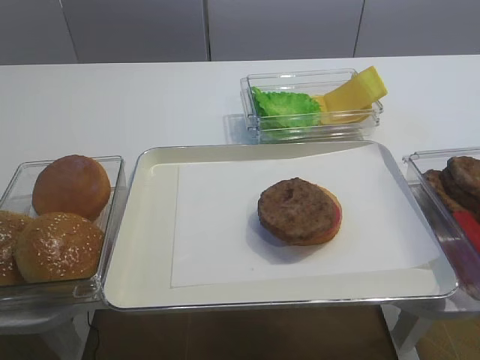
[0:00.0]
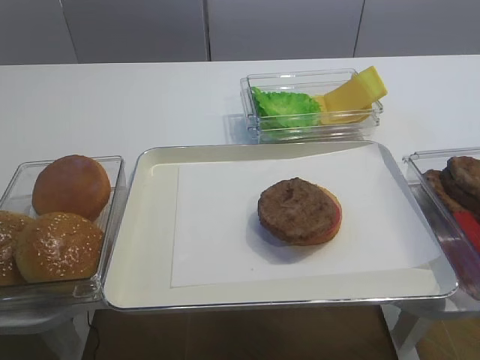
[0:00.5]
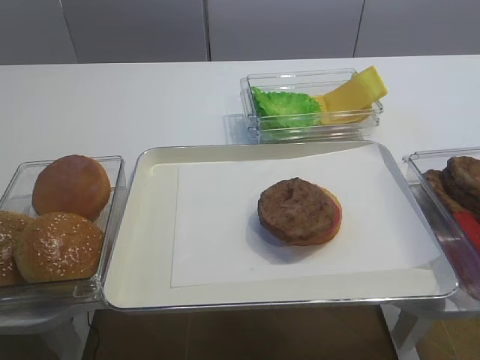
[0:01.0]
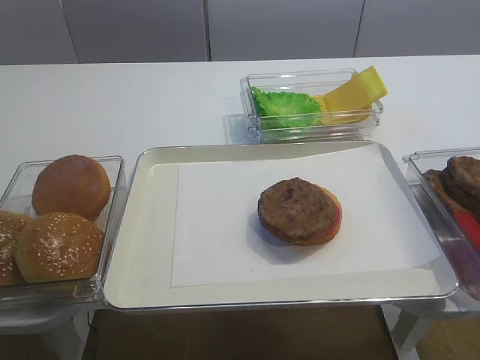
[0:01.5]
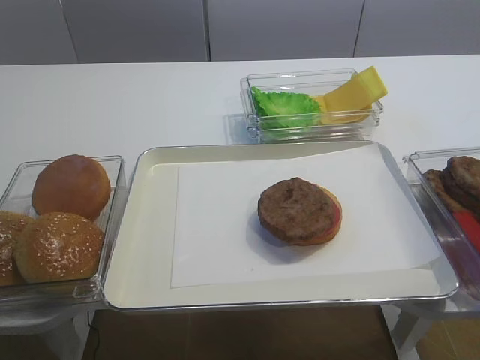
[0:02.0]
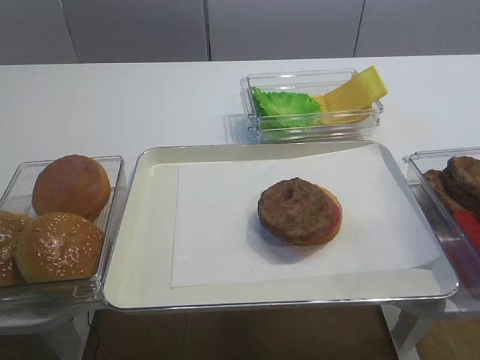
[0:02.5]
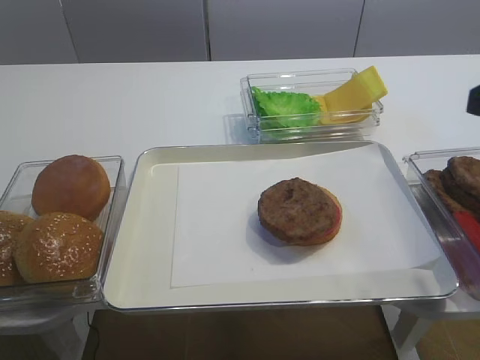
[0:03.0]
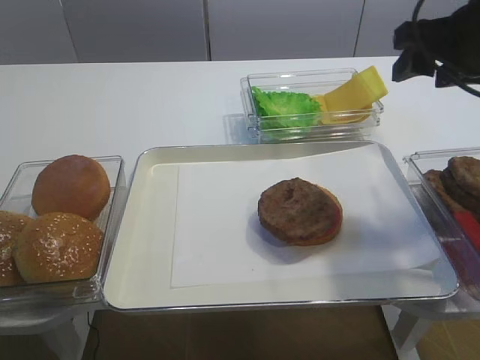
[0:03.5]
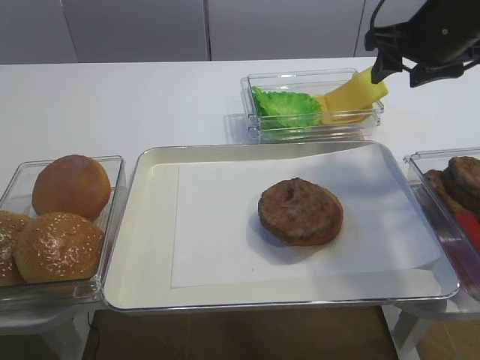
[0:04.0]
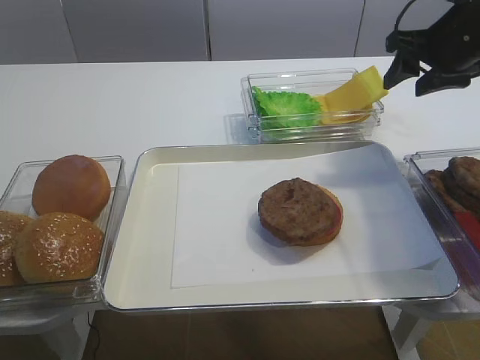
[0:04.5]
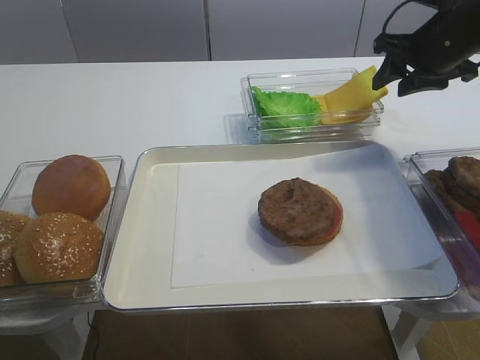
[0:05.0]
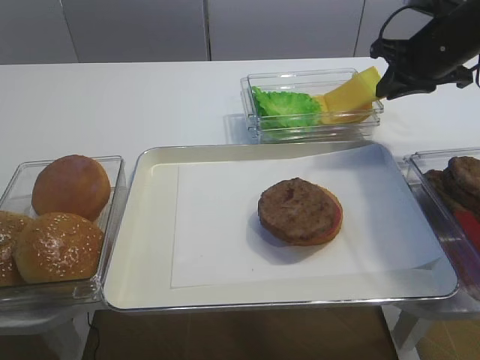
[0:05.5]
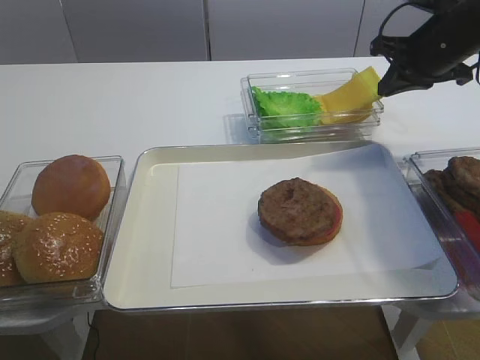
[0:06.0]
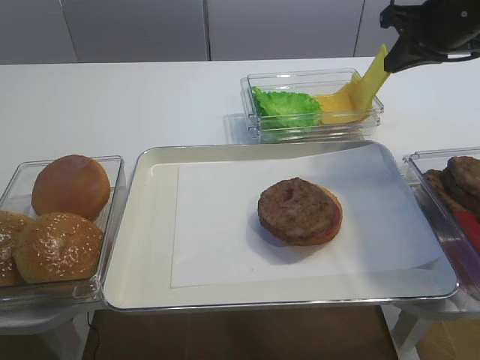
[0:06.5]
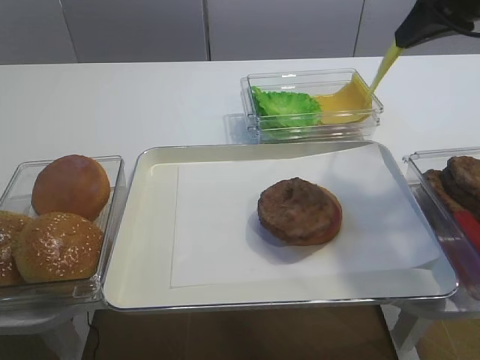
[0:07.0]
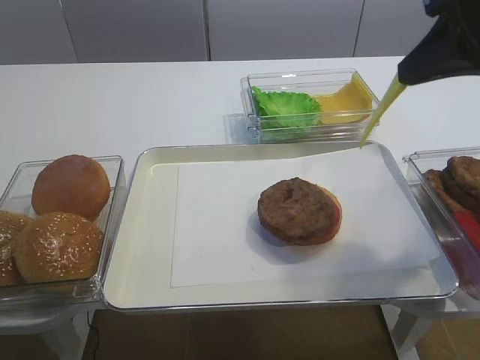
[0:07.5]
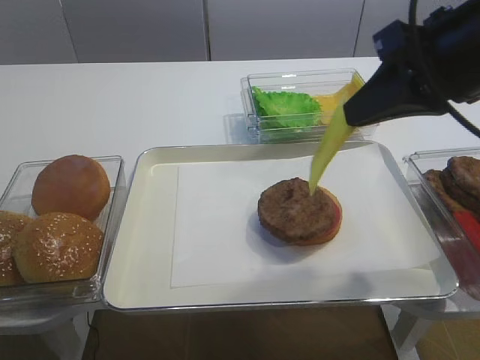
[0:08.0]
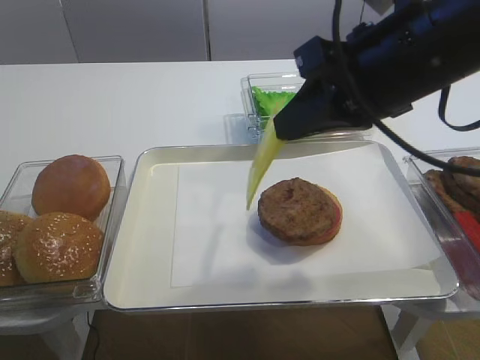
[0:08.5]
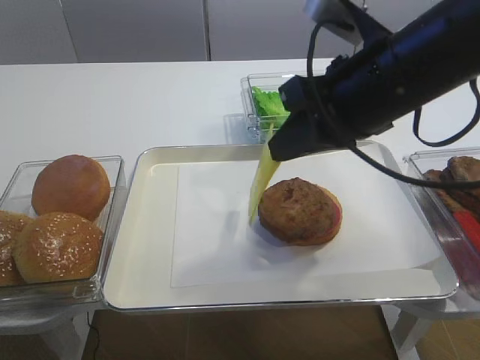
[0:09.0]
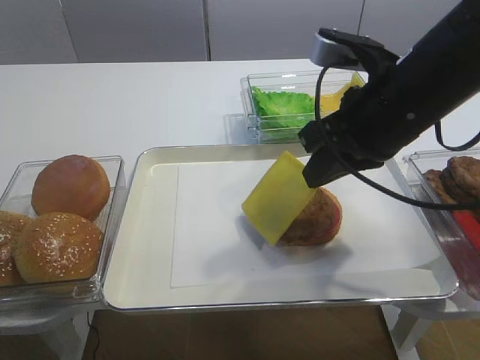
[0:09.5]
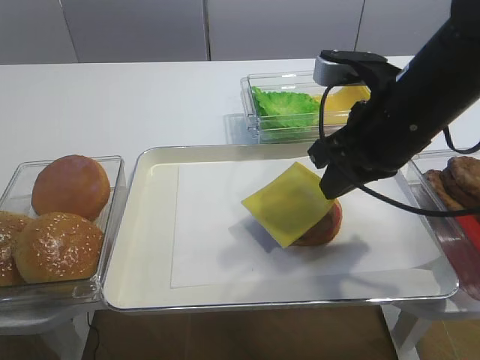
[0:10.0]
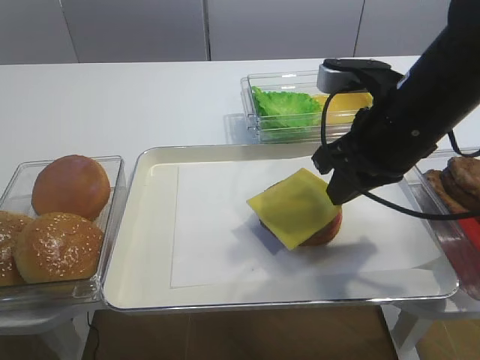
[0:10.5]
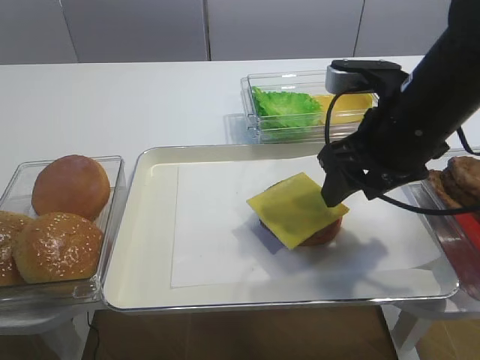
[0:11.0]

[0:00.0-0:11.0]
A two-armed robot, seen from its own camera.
Step, 0:00.0 to 0:06.0: Pick up the cheese slice with the right gripper.
0:02.0 to 0:03.5: The right gripper goes about 30 cm forward.
0:03.5 to 0:05.5: The right gripper is displaced forward and downward by about 15 cm, and closes its fingers.
0:05.5 to 0:07.5: The right gripper heads backward and upward, covering approximately 20 cm.
0:07.5 to 0:09.0: The right gripper moves to the left and downward, roughly 10 cm.
0:09.0 to 0:11.0: The right gripper moves some 5 cm, and opens its fingers.

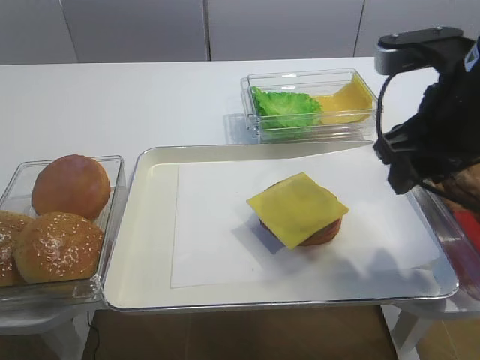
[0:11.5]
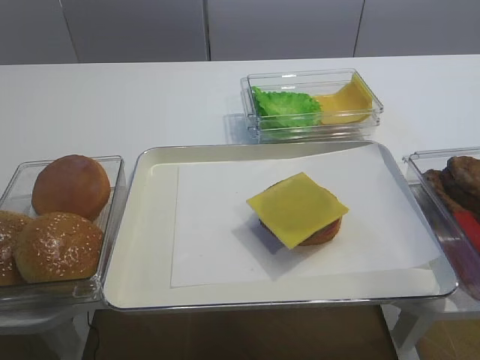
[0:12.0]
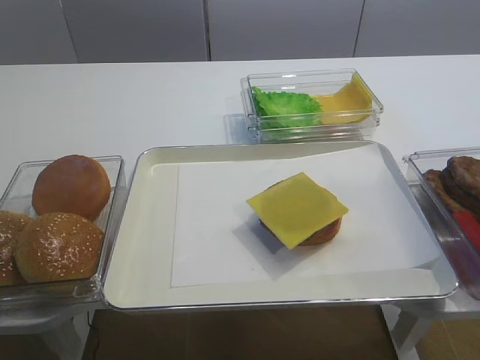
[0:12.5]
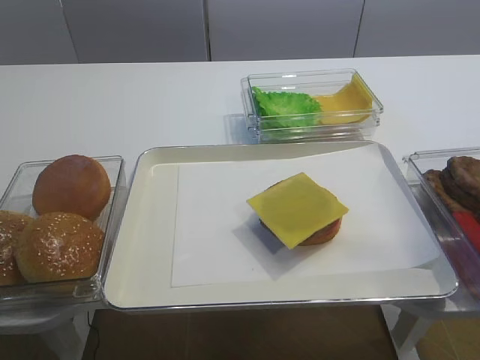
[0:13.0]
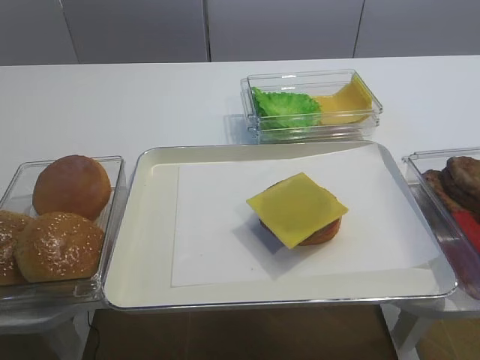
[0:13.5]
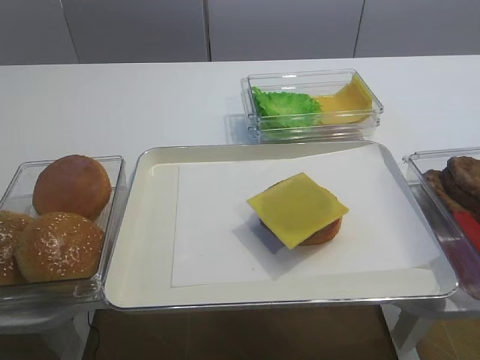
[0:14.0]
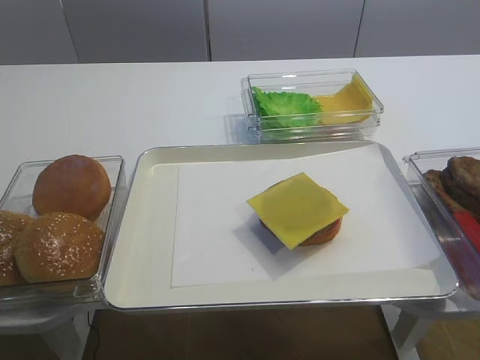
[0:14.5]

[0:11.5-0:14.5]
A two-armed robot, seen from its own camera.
0:11.5 to 0:13.0: The right gripper moves backward, some 25 cm.

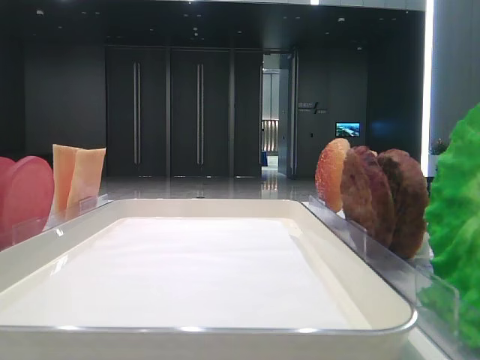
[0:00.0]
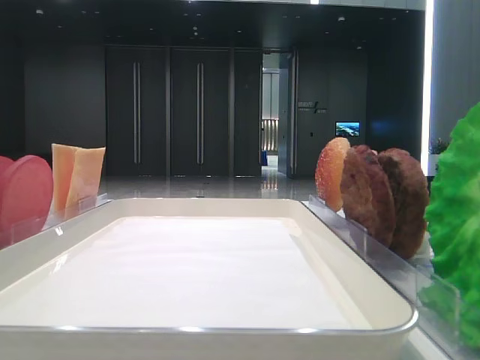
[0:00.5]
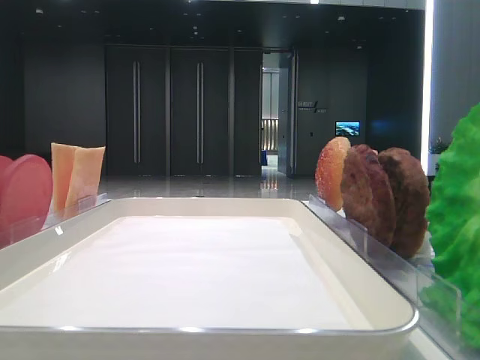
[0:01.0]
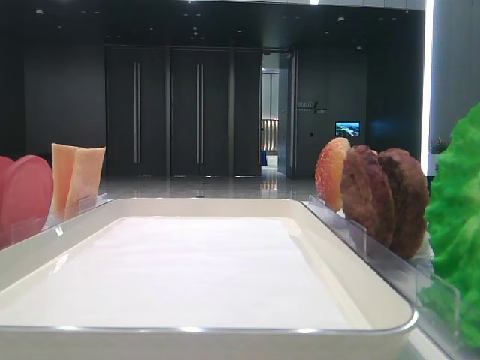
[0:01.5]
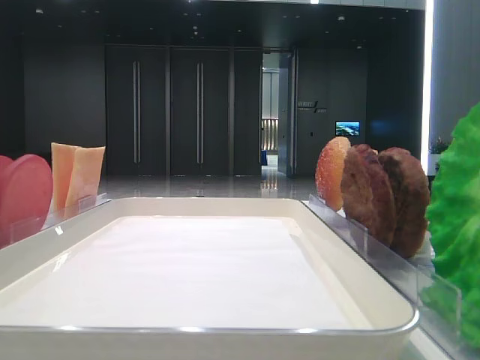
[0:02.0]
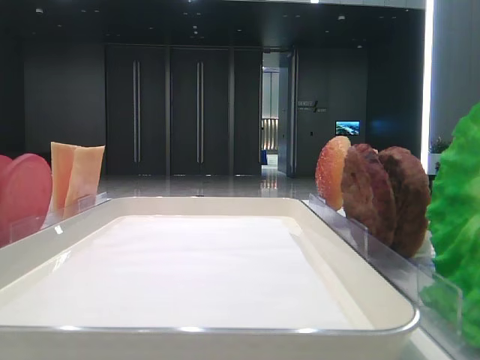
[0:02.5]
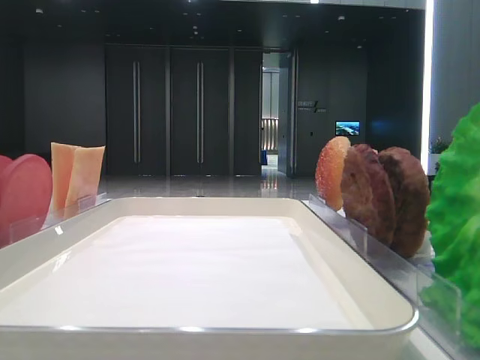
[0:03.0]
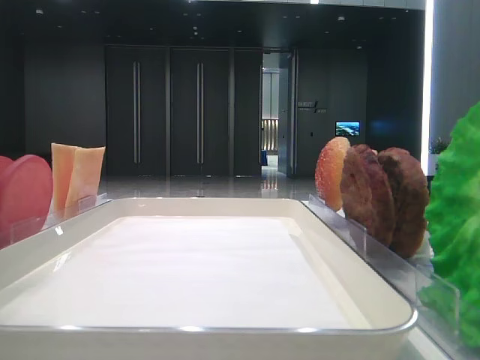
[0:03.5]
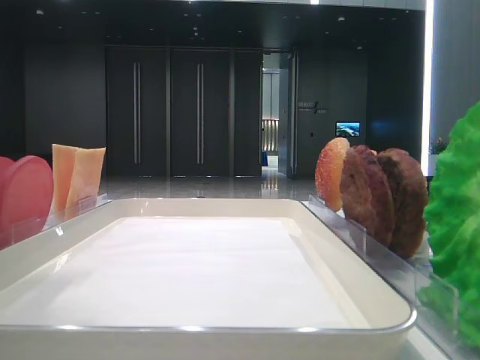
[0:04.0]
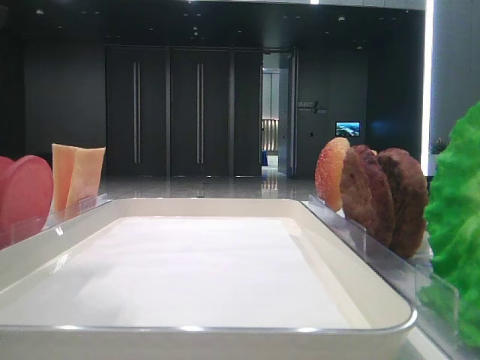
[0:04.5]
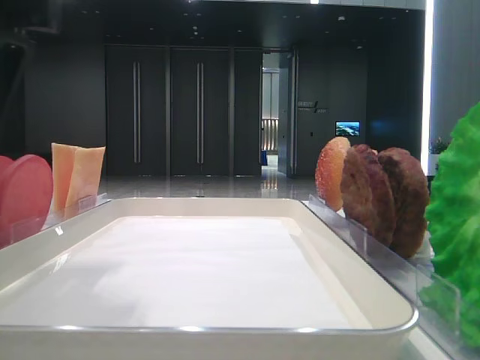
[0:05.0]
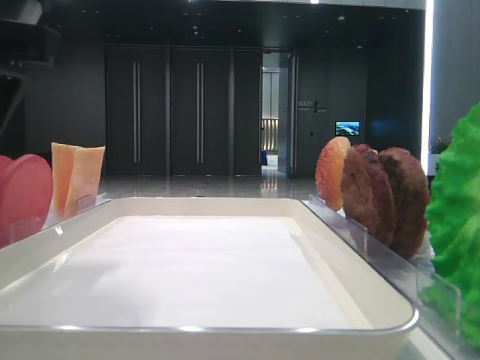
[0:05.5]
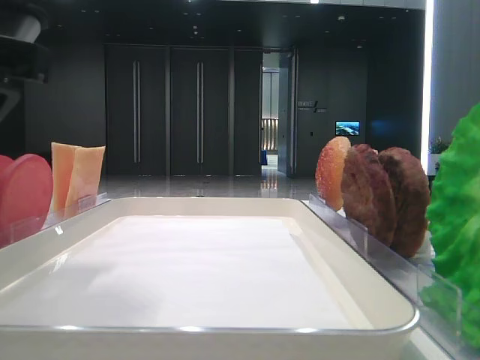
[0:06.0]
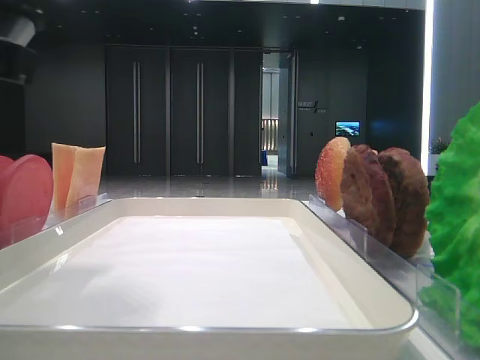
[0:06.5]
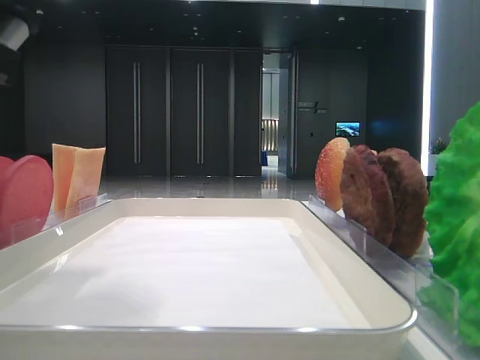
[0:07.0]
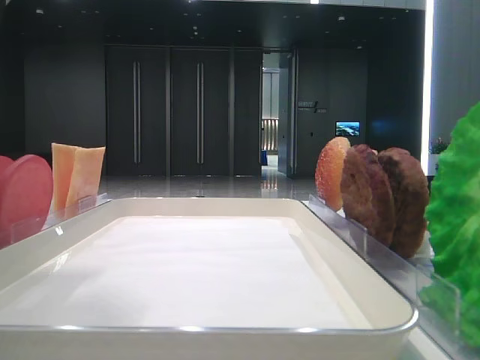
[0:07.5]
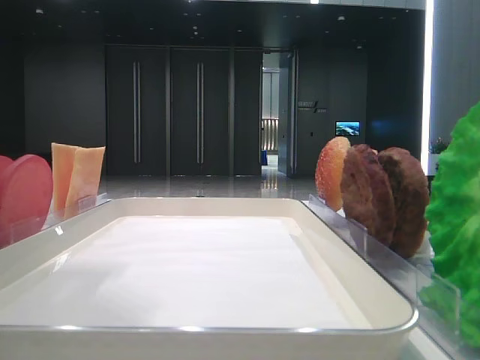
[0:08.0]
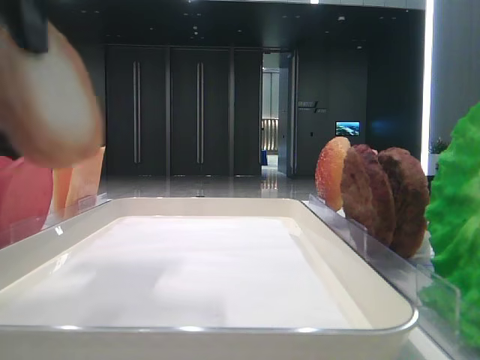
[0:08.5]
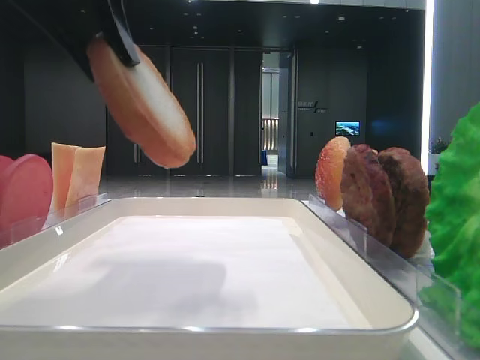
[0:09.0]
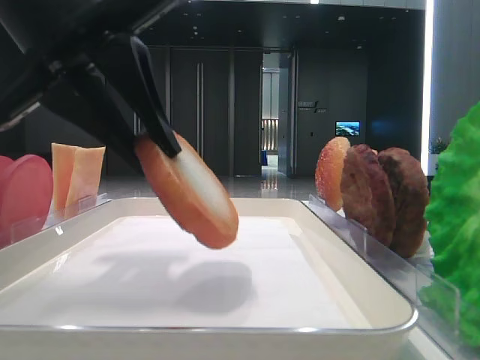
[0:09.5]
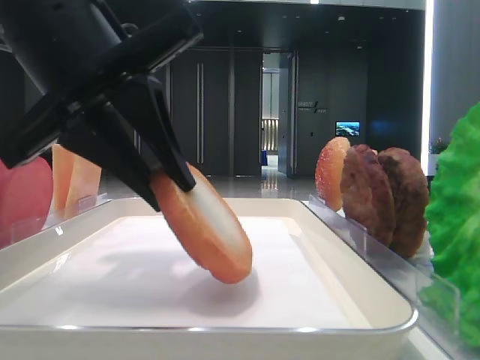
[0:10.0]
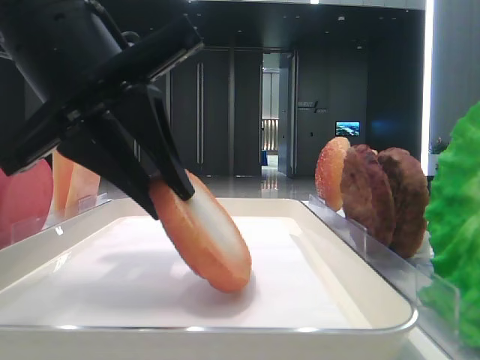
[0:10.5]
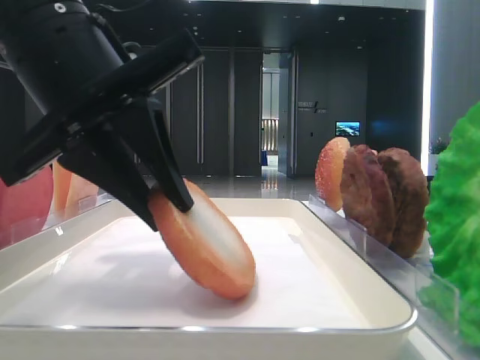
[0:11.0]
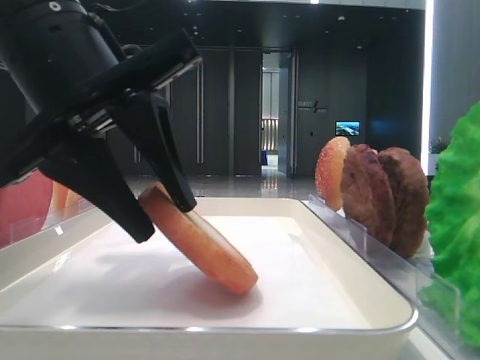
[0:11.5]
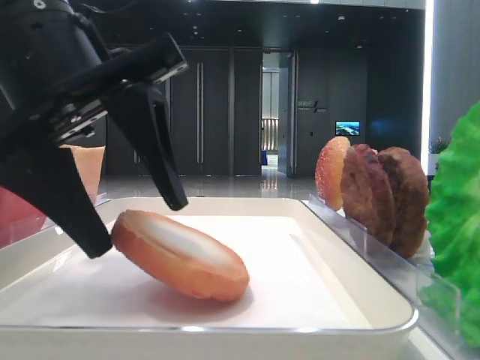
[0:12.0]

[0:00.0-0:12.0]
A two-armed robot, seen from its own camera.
Step, 0:00.0 to 0:07.0: Pick up the bottom bread with the left hand.
0:02.0 to 0:04.0: The left gripper moves to the right, forward and downward, approximately 20 cm.
0:04.0 to 0:06.0: The left gripper shifts roughly 5 cm downward.
0:08.0 to 0:10.0: The left gripper moves downward and to the right, approximately 10 cm.
0:10.0 to 0:12.0: The left gripper opens up.
